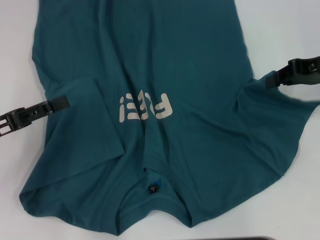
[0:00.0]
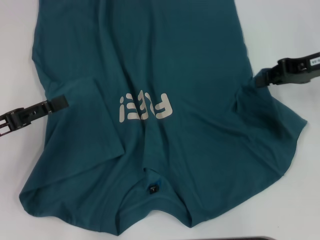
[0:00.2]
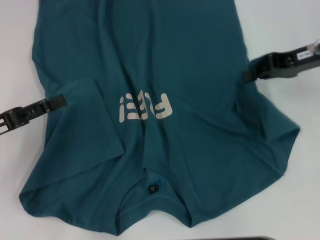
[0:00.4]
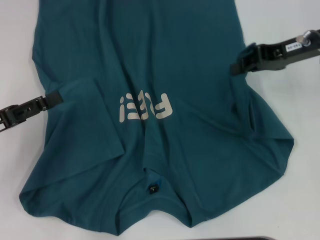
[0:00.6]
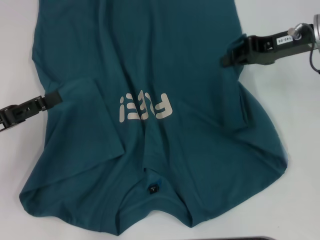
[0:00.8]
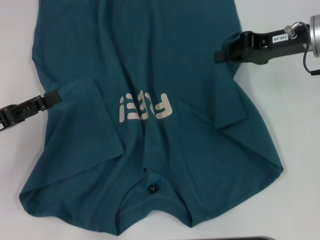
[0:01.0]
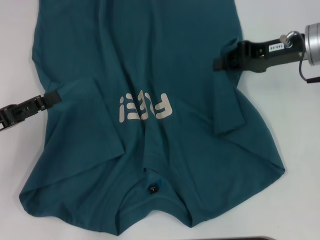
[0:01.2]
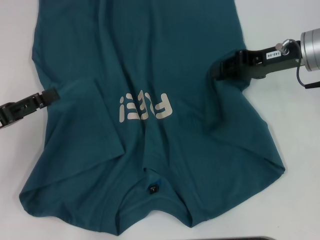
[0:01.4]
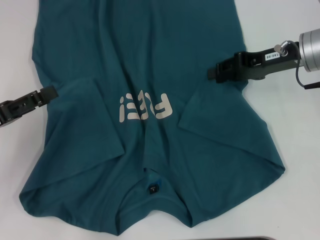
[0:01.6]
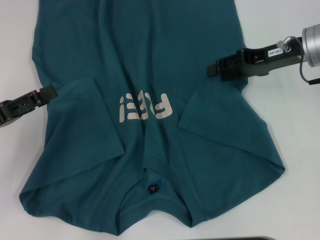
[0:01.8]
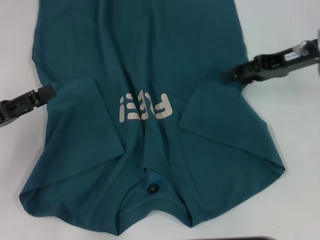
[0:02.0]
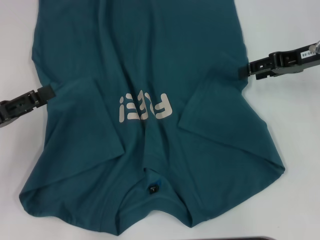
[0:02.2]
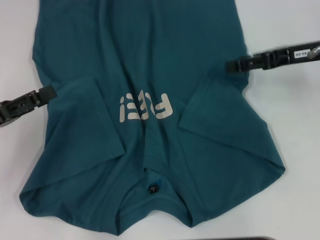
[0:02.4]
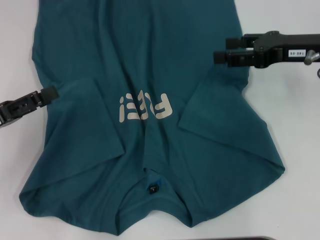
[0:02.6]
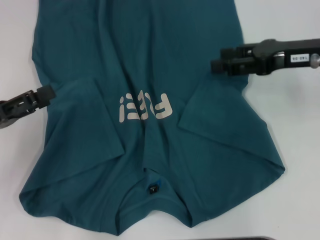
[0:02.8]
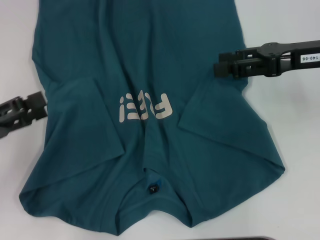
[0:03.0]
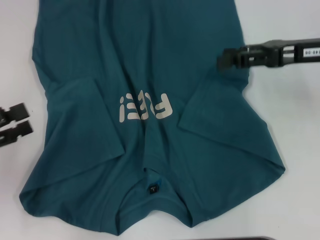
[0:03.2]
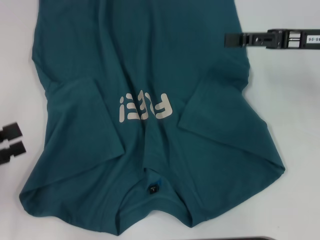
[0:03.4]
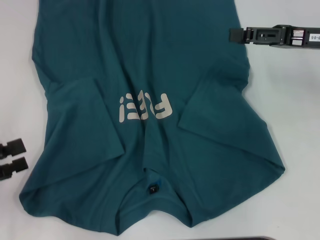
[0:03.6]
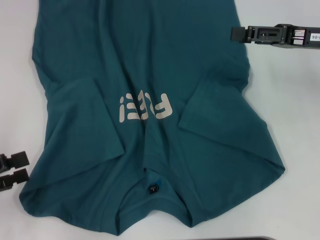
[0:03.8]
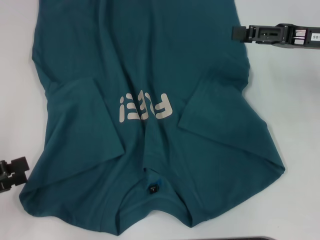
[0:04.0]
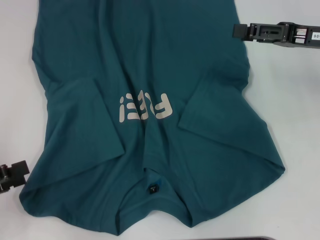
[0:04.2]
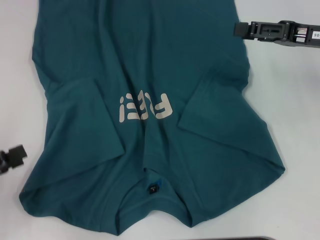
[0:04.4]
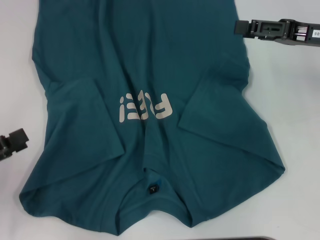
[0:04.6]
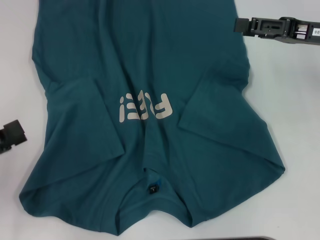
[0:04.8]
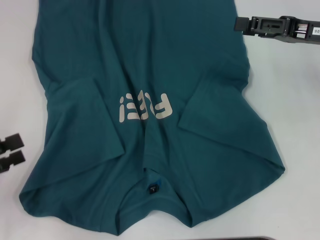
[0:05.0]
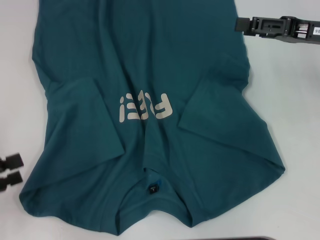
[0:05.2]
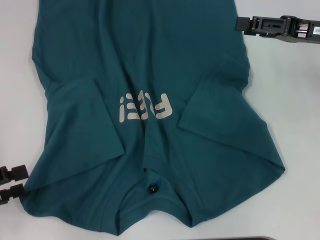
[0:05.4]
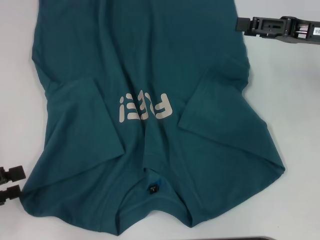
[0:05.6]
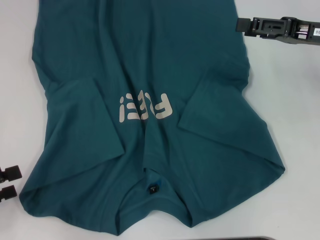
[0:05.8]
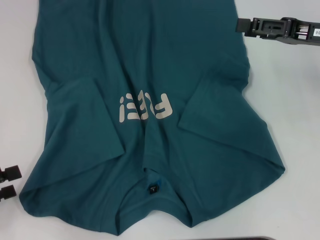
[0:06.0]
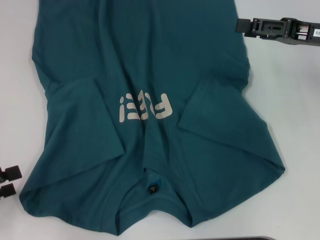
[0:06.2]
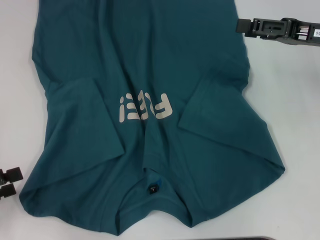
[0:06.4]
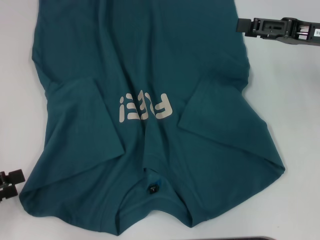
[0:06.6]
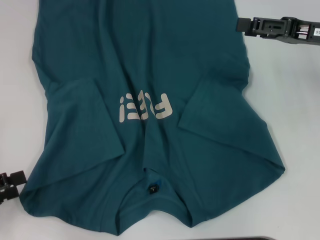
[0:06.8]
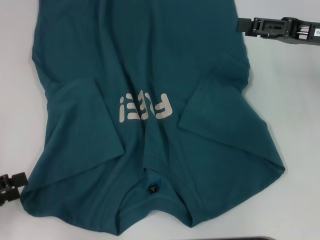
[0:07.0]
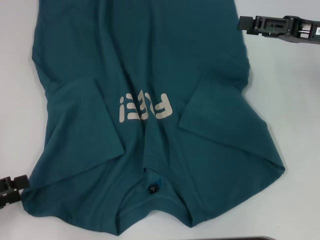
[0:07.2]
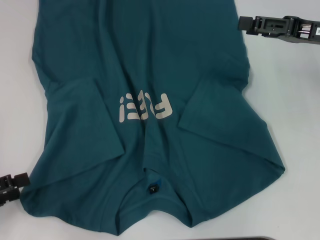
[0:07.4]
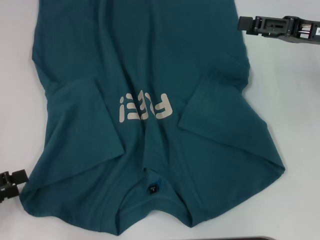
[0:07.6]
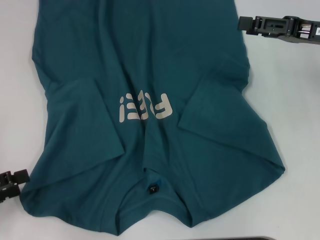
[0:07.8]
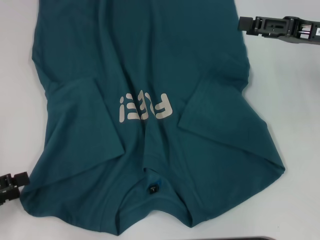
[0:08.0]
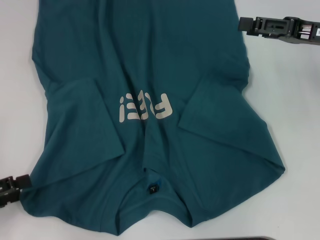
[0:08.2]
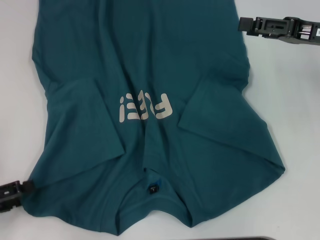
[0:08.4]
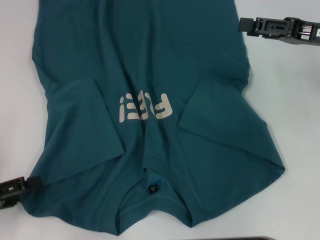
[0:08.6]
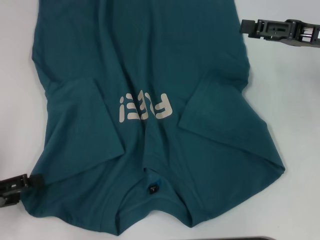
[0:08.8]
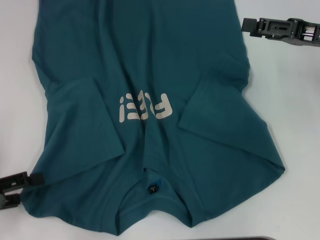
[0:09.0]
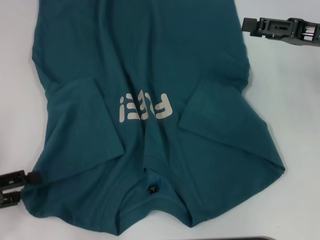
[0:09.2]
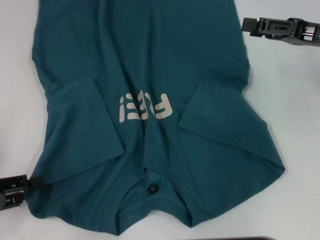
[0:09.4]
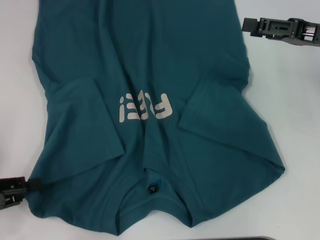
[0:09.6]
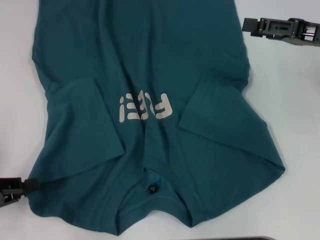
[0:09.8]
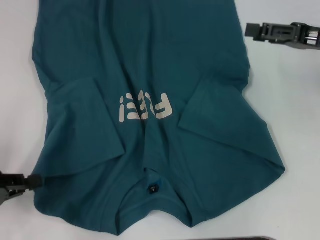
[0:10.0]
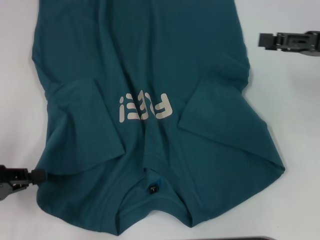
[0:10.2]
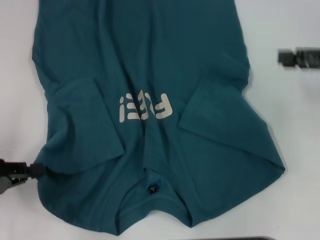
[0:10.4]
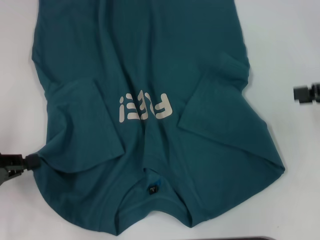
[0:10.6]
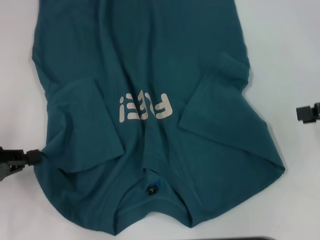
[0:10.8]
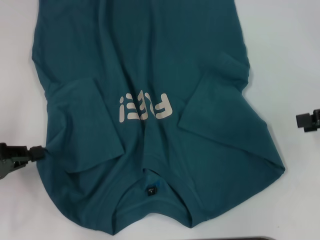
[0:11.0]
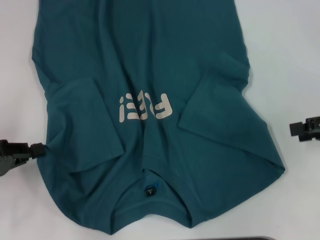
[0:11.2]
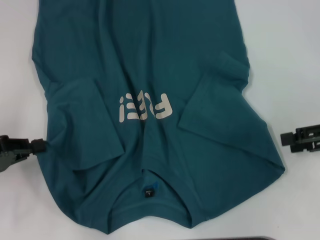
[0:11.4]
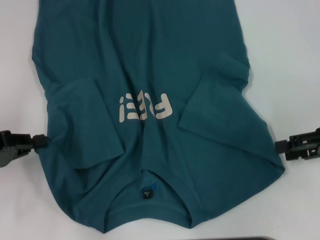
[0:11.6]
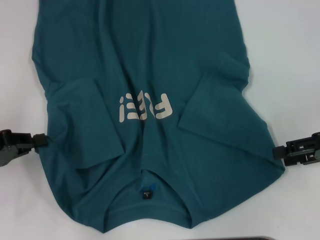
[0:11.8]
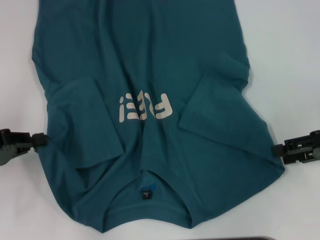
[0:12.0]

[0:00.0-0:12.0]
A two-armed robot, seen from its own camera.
Step, 0:01.8 to 0:10.0: Grab the bottom left corner with your left hand.
0:00.0 to 0:01.6: The right gripper is displaced to the left by roughly 5 cm.
0:01.6 to 0:03.0: The right gripper moves about 5 cm, and opens.
0:03.0 to 0:04.4: The left gripper heads backward, covering about 5 cm.
0:04.4 to 0:07.6: The grippers make only small movements.
0:07.6 to 0:09.0: The grippers make only small movements.
0:09.0 to 0:10.4: The left gripper closes; the right gripper shifts by roughly 5 cm.
0:10.4 to 0:12.0: The right gripper shifts roughly 5 cm downward.

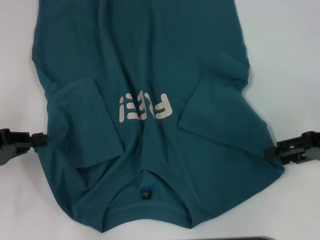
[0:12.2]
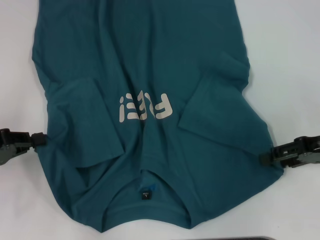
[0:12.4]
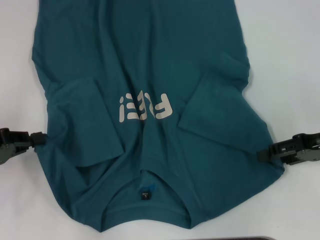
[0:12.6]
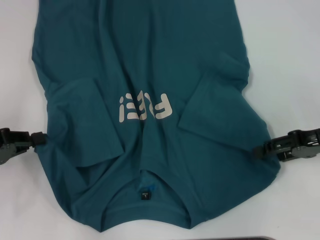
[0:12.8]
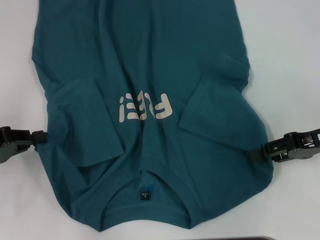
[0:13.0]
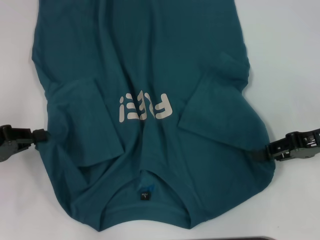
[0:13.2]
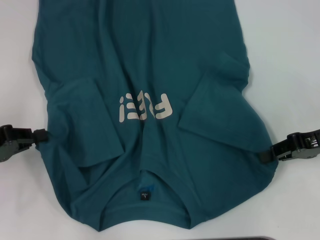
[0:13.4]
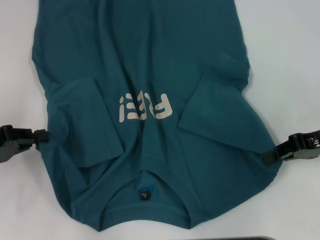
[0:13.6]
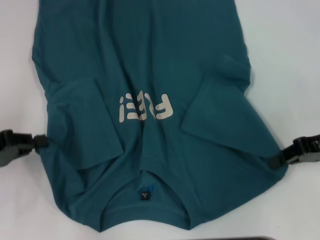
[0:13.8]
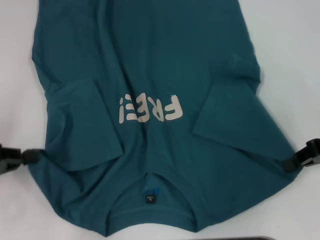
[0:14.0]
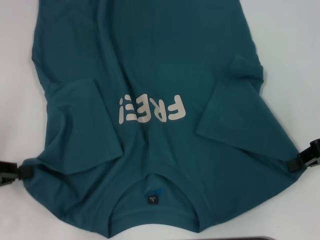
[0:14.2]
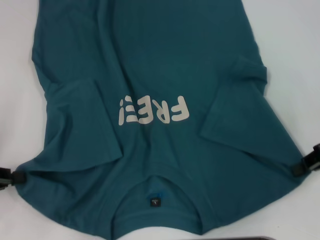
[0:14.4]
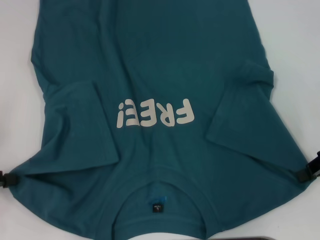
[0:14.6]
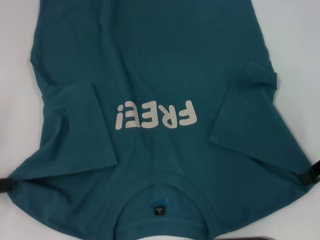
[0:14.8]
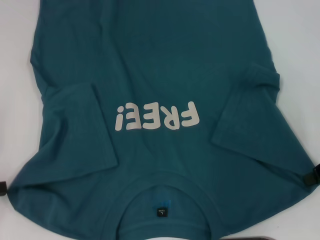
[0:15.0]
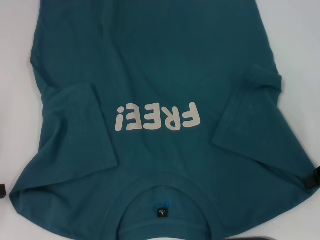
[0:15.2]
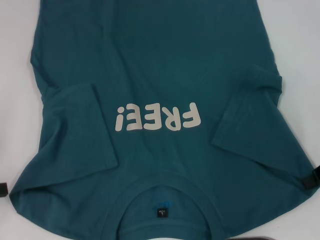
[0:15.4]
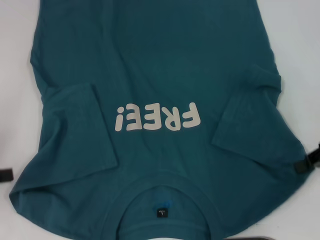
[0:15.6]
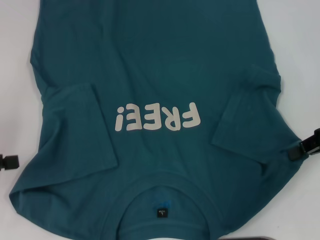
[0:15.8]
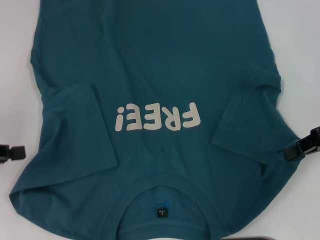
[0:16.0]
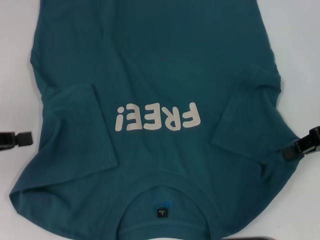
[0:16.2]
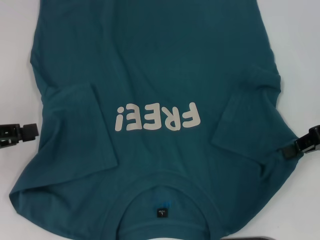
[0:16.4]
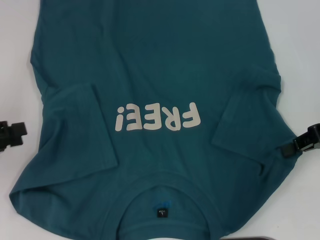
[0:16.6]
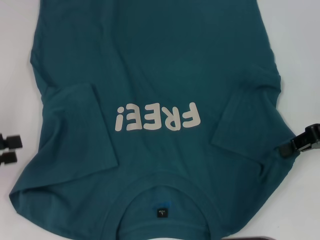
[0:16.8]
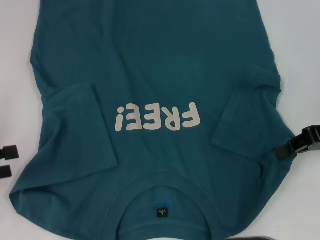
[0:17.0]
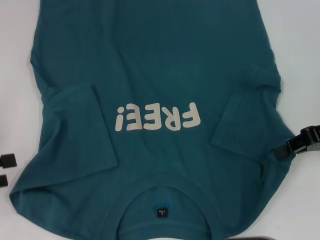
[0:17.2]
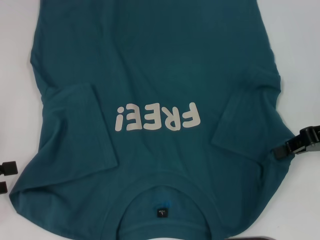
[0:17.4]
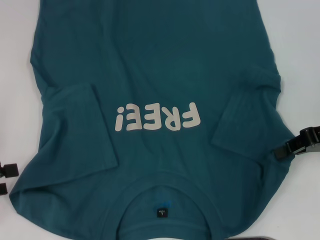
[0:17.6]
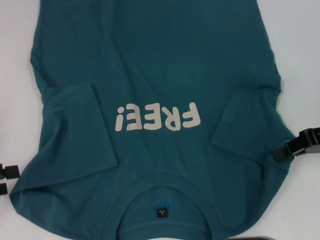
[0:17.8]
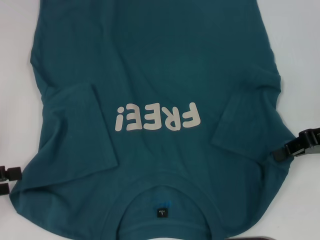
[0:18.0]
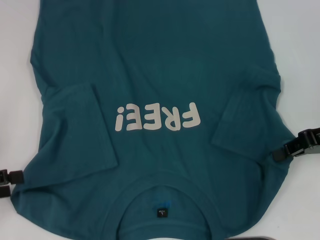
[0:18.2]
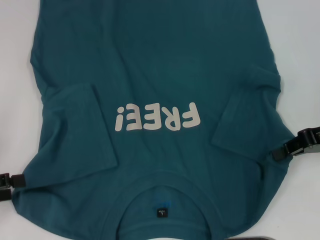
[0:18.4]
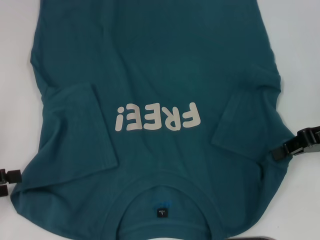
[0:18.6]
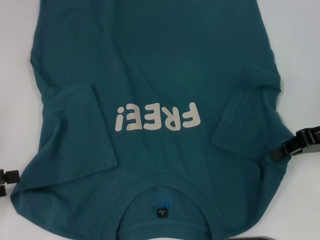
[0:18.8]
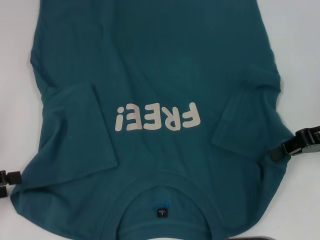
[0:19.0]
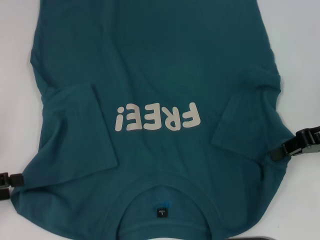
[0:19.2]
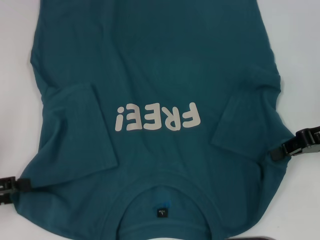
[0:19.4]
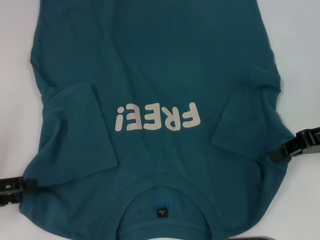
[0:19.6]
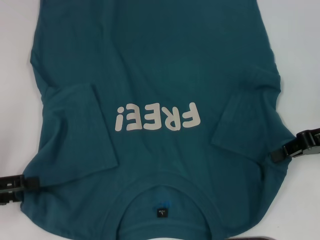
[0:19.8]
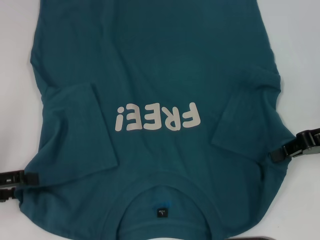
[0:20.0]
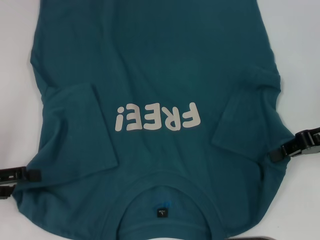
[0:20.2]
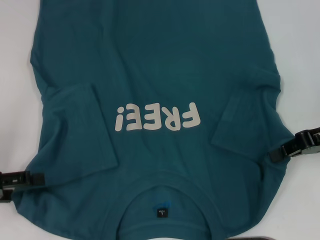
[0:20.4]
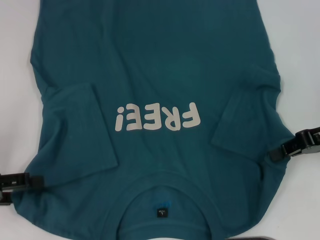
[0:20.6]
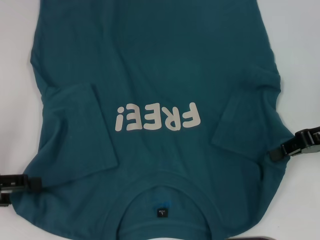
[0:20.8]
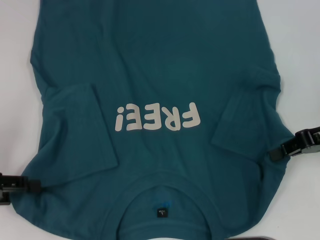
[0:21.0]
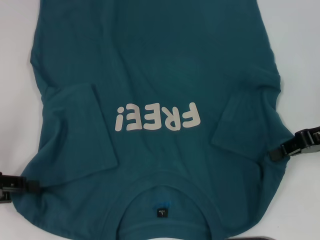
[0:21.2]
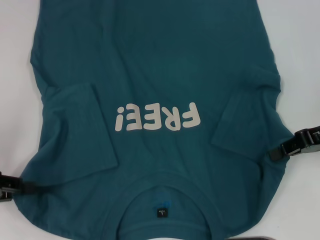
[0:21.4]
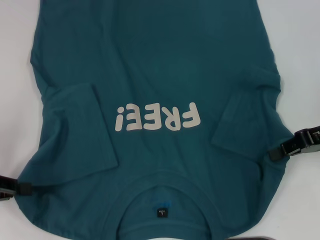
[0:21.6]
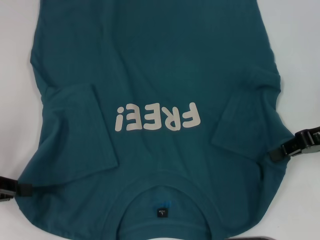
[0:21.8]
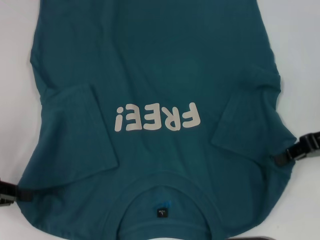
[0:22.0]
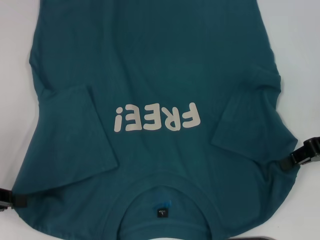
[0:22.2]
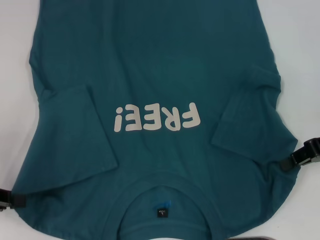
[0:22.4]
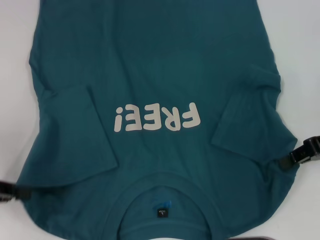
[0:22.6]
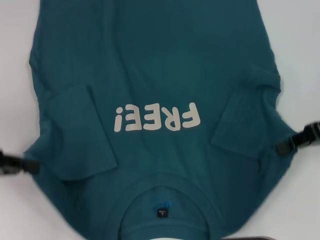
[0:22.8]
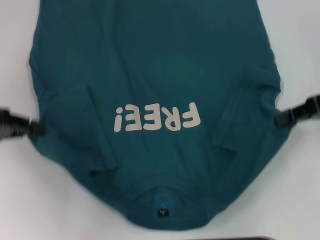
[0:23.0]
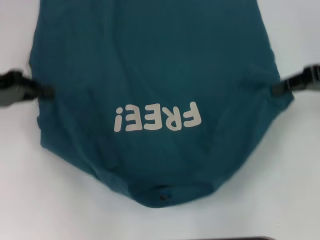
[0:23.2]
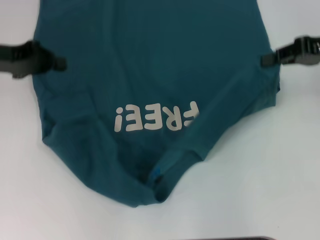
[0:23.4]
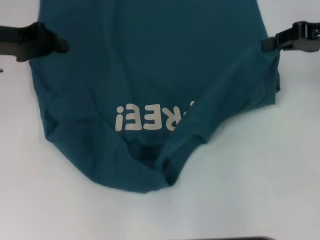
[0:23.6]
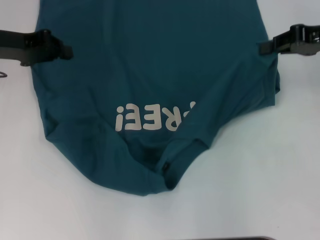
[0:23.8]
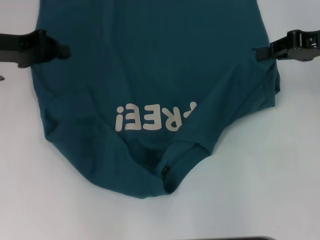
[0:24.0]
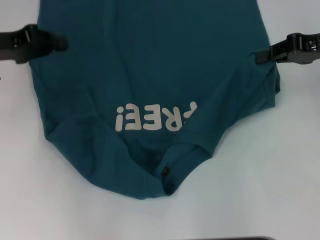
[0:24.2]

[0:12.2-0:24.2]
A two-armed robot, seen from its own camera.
0:12.2 to 0:13.8: The right gripper closes.
0:13.8 to 0:15.2: The left gripper ends up some 5 cm from where it was.
0:15.2 to 0:16.6: The left gripper moves roughly 5 cm.
0:16.6 to 0:18.2: The left gripper opens up.
0:18.2 to 0:19.8: The grippers stay close to where they were, moving slightly.
0:21.2 to 0:22.6: The left gripper closes its fingers.
0:22.6 to 0:24.2: The left gripper travels forward and to the right by roughly 15 cm. Meanwhile the right gripper goes some 5 cm forward.
